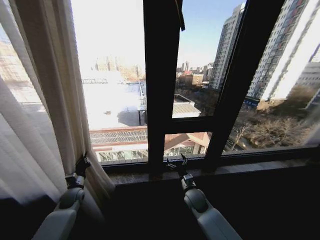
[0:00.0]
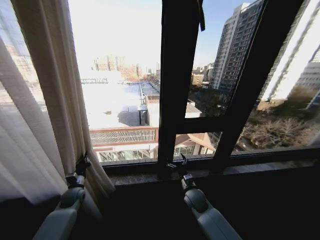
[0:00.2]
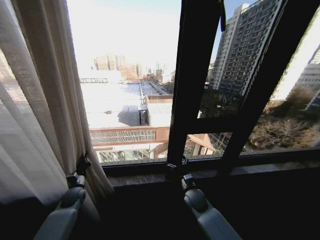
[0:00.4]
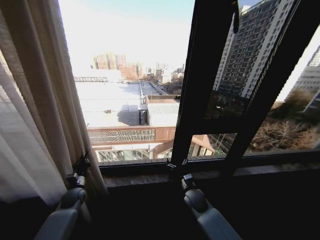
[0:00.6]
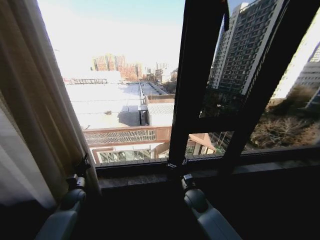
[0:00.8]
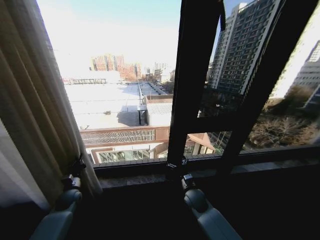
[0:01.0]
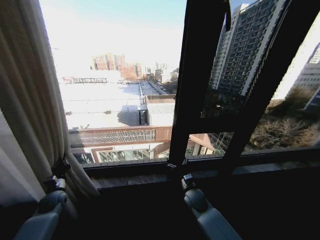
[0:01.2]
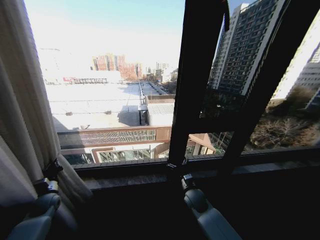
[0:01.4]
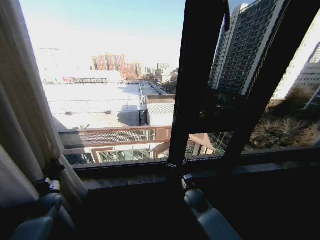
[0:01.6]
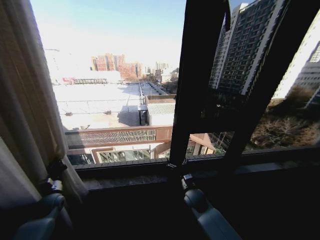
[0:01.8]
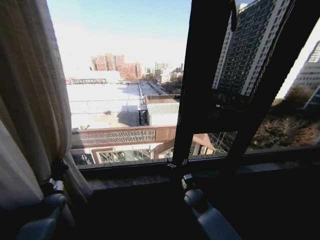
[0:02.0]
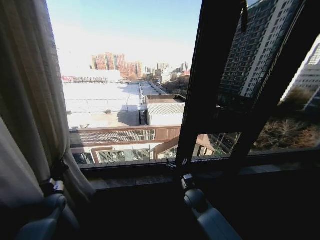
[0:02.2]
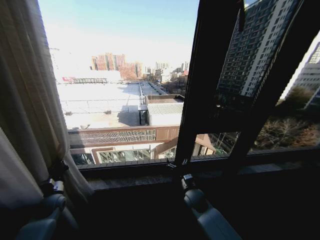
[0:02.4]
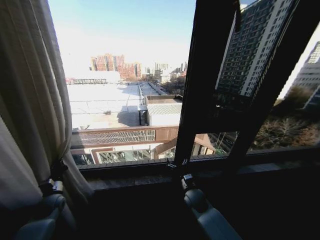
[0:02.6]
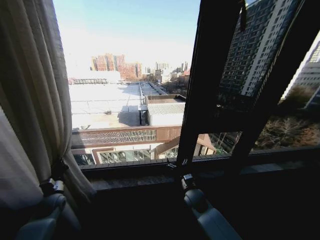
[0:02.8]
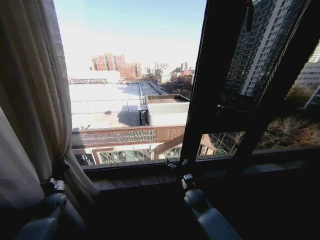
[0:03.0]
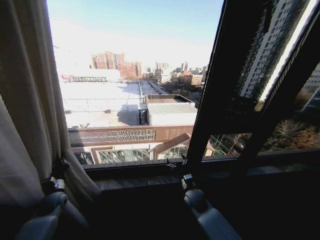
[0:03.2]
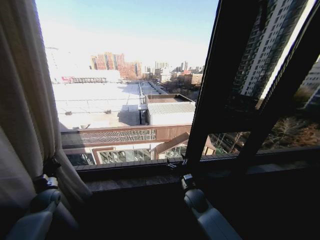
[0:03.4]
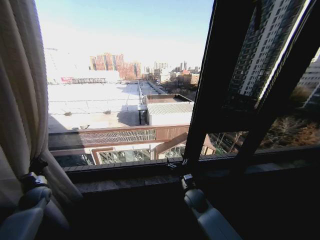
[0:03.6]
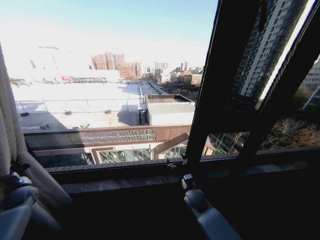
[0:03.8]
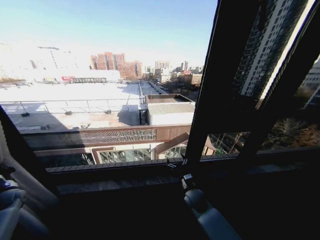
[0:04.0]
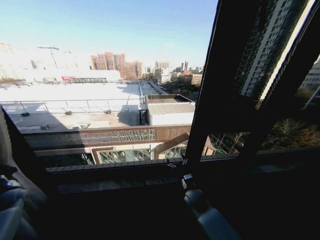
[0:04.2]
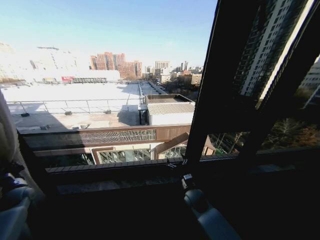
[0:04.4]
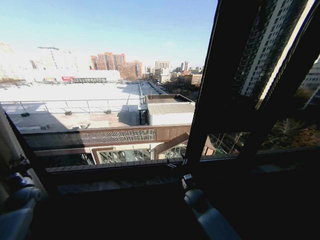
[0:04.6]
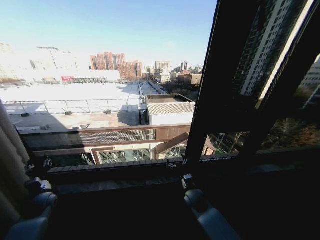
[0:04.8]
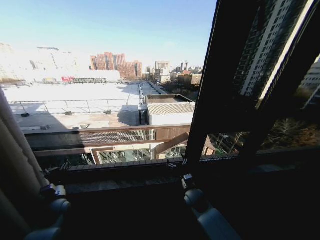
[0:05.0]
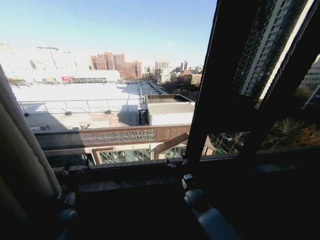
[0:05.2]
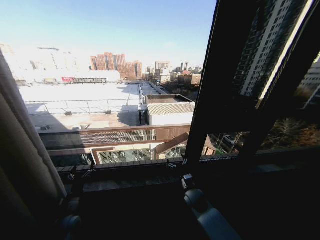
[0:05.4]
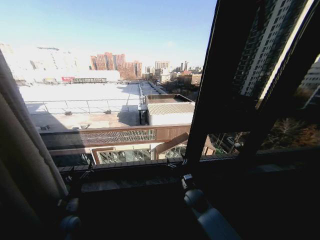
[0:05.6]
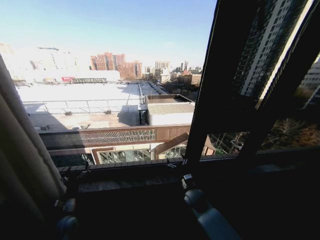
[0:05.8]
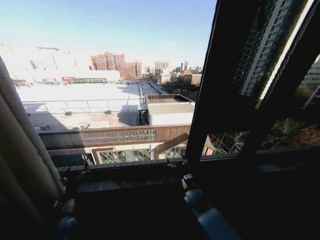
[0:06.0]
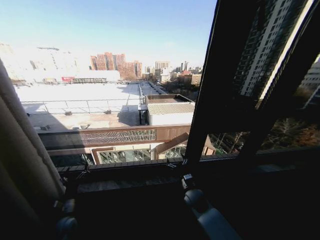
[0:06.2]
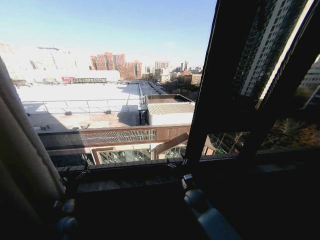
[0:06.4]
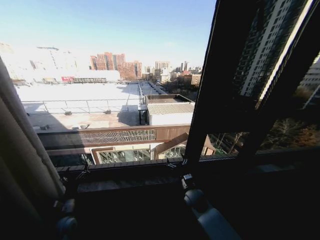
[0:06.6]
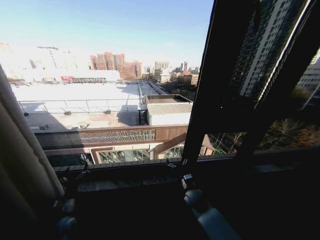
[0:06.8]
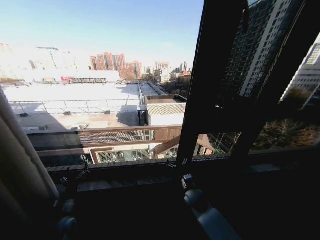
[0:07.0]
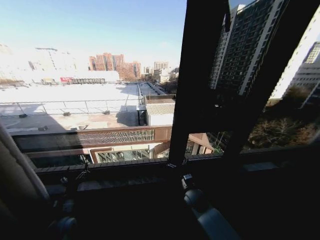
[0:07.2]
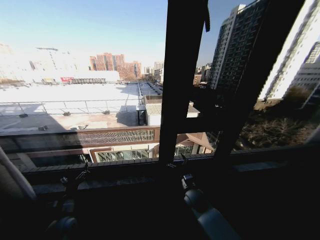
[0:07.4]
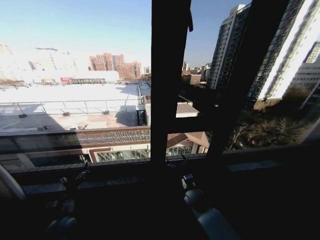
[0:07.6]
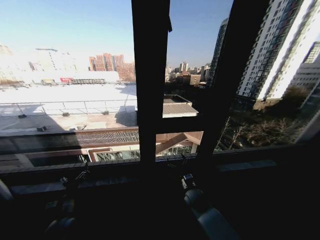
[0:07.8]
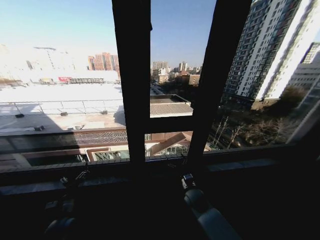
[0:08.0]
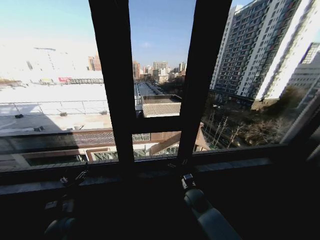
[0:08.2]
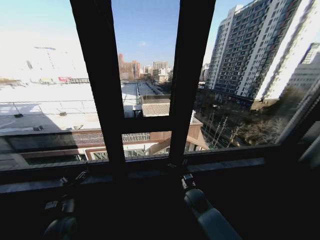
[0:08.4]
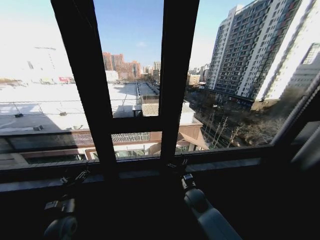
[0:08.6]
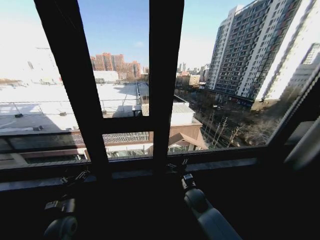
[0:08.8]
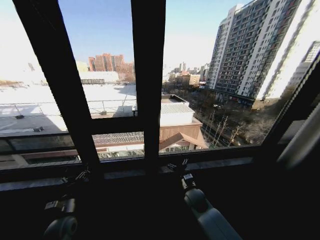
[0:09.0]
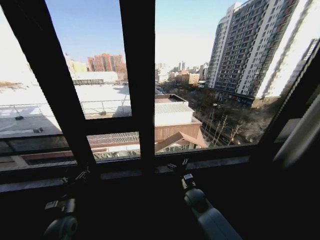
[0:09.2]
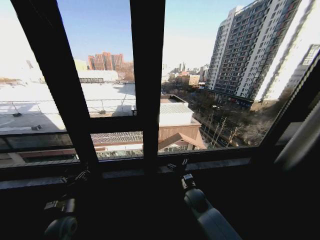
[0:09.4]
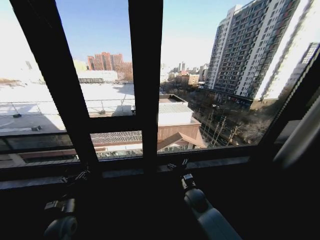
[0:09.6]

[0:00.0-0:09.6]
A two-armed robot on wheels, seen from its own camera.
Task of the whole recording: Open the curtains by pulling them apart, changing their state from closed to fully open.
0:00.0 to 0:01.6: The left gripper shifts roughly 10 cm to the left.
0:03.2 to 0:04.8: The left gripper travels to the left and back again, about 20 cm each way, and opens.
0:04.8 to 0:06.4: The left gripper moves to the right and backward, about 15 cm, and opens up.
